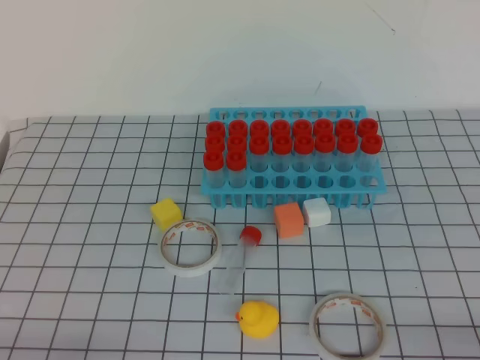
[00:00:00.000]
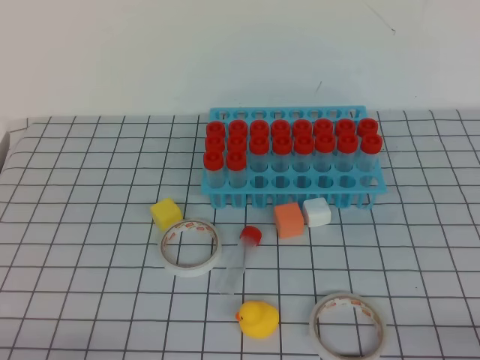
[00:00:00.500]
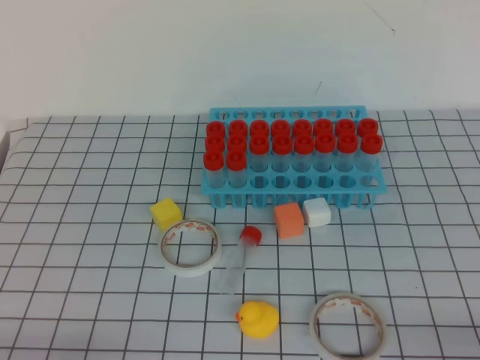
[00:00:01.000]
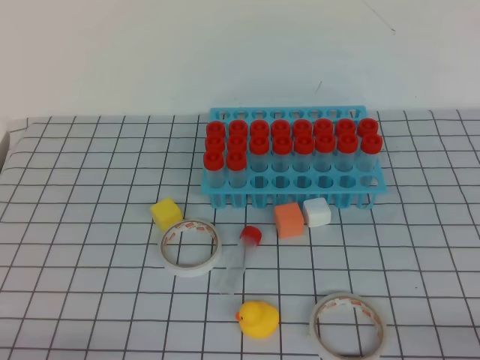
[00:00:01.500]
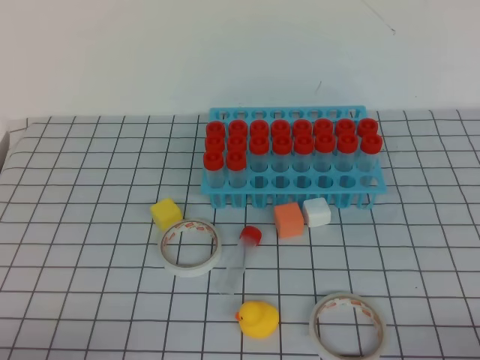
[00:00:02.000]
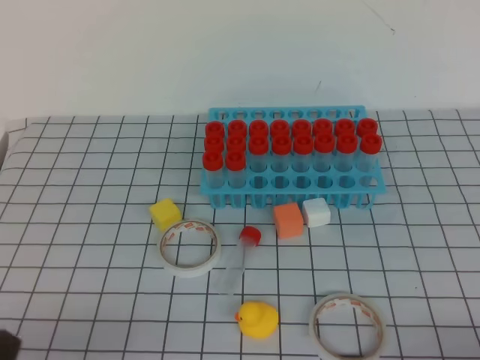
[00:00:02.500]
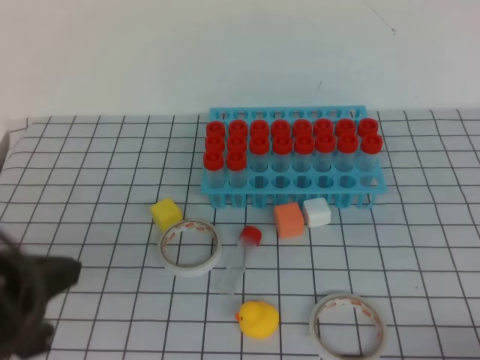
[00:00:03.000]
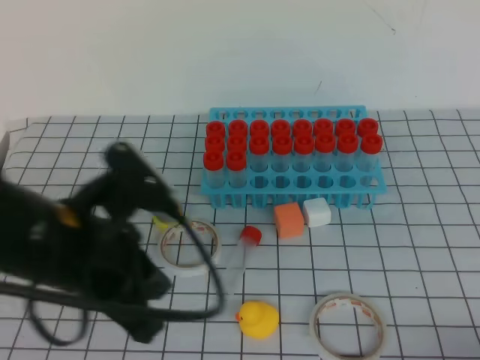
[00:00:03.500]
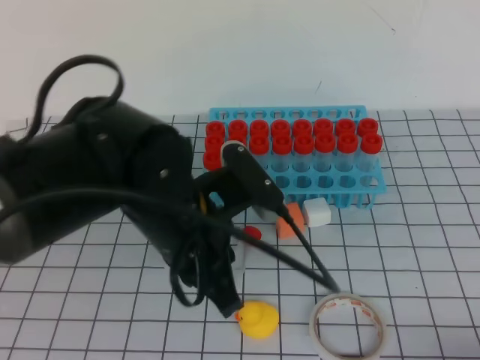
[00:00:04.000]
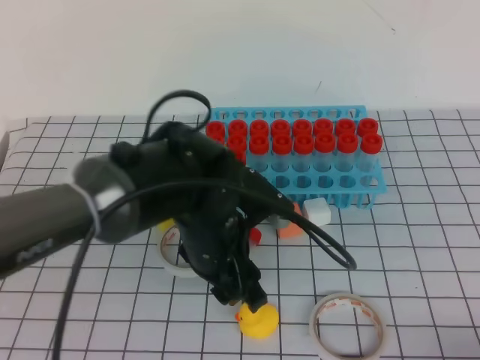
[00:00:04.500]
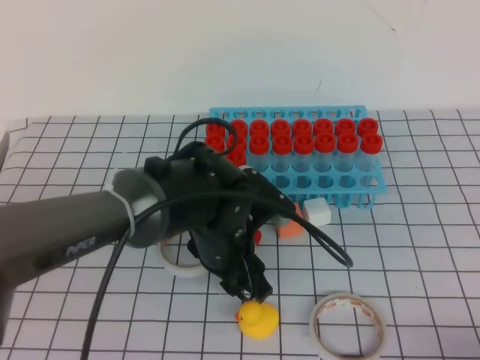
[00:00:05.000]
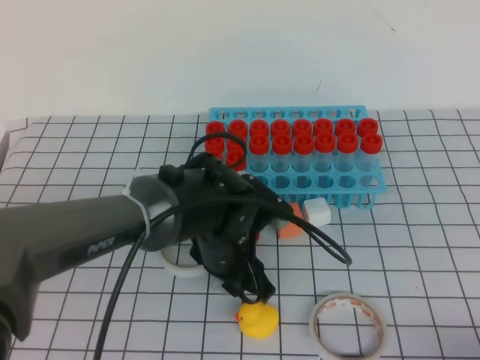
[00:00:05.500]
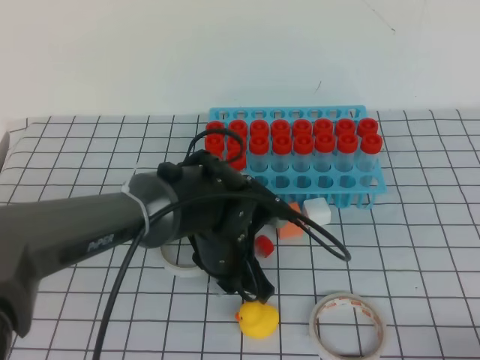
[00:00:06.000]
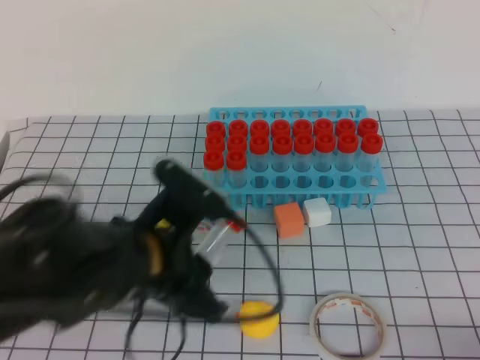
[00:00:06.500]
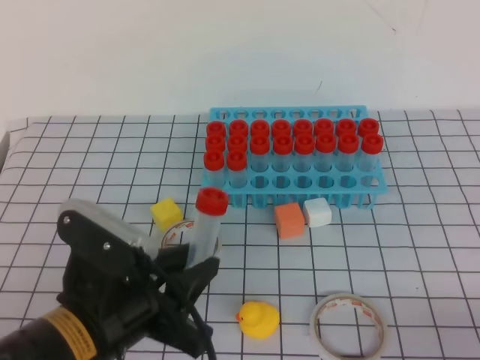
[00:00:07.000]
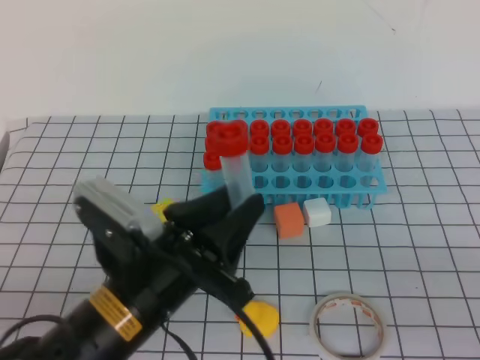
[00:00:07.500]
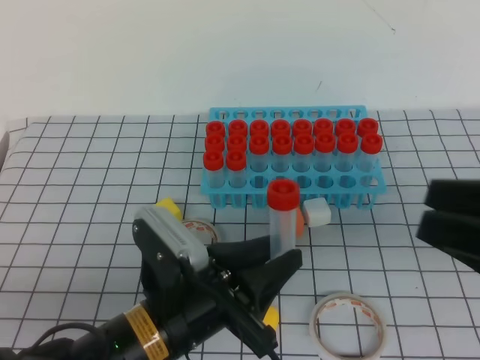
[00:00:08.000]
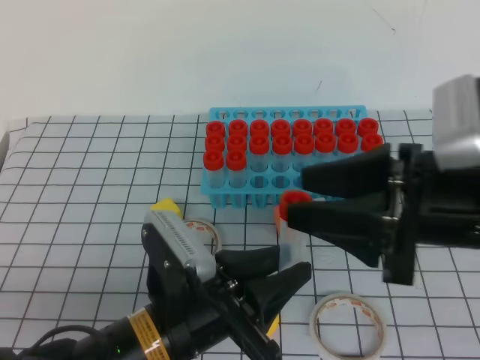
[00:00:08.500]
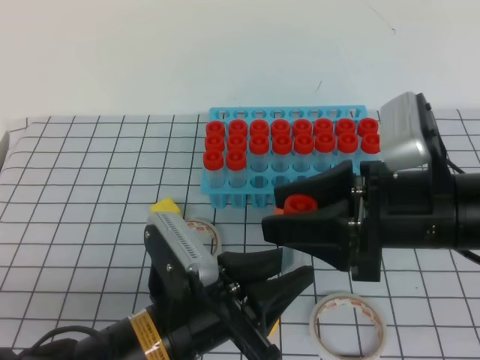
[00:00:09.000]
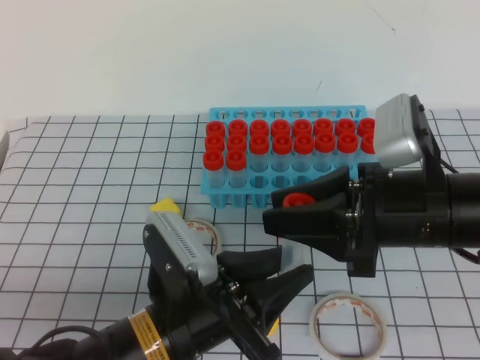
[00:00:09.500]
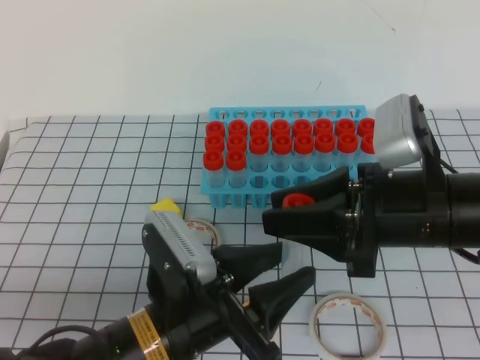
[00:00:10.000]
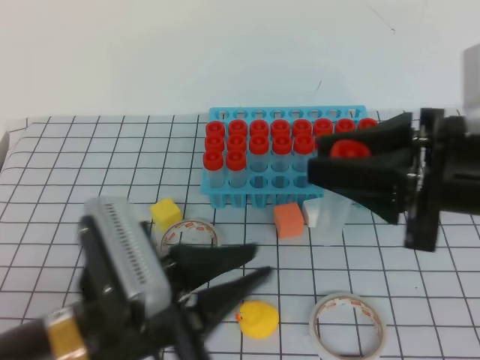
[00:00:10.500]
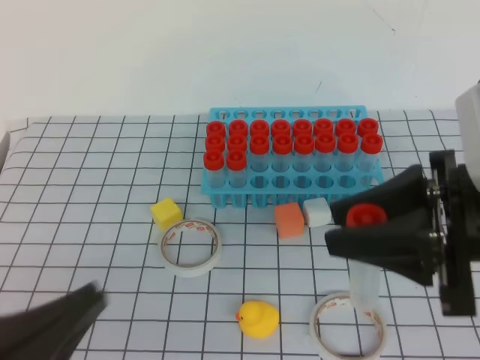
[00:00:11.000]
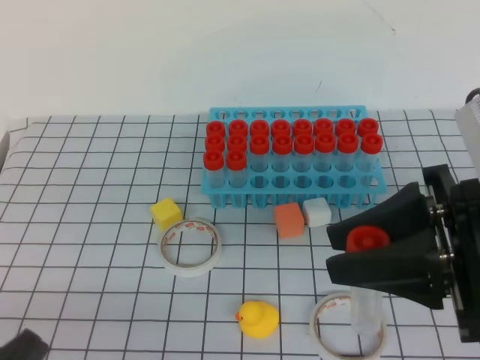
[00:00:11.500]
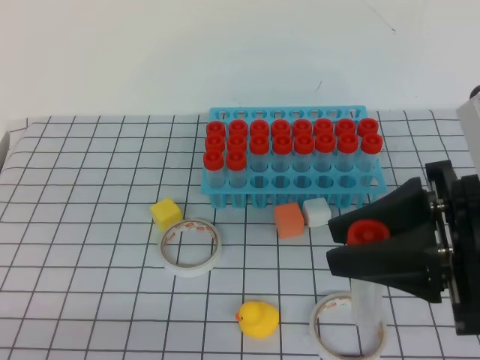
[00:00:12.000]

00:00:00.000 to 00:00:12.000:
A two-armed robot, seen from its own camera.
00:00:02.000 to 00:00:04.000: The left gripper is displaced to the right, forward and upward by roughly 30 cm.
00:00:04.000 to 00:00:06.000: The left gripper moves downward and forward, some 10 cm, and opens up.
00:00:06.000 to 00:00:08.000: The left gripper goes approximately 15 cm backward and to the left. Meanwhile the right gripper shifts some 15 cm upward and forward, and opens.
00:00:08.000 to 00:00:10.000: The right gripper heads to the left and forward, covering some 15 cm.
00:00:10.000 to 00:00:12.000: The left gripper is displaced backward and to the left by approximately 20 cm, and closes. Meanwhile the right gripper shifts by some 10 cm.

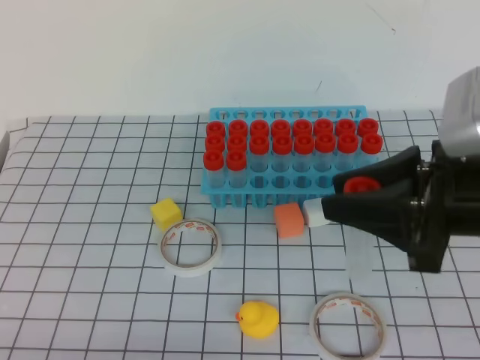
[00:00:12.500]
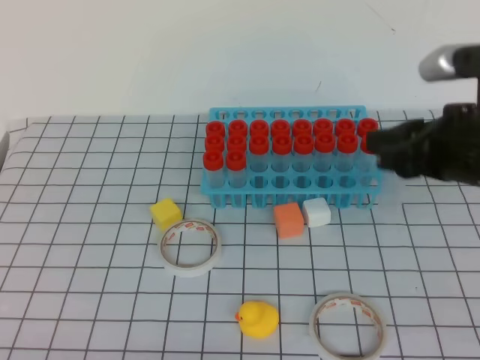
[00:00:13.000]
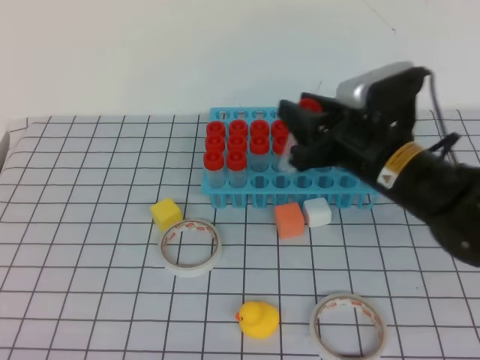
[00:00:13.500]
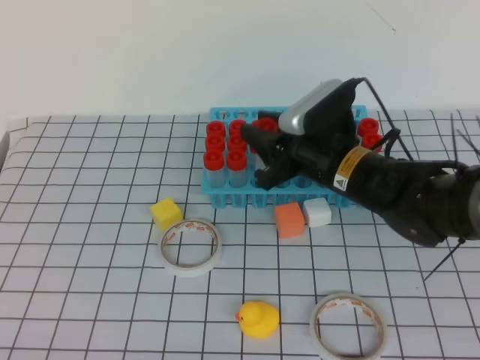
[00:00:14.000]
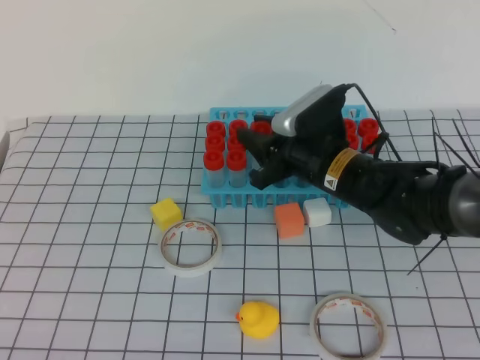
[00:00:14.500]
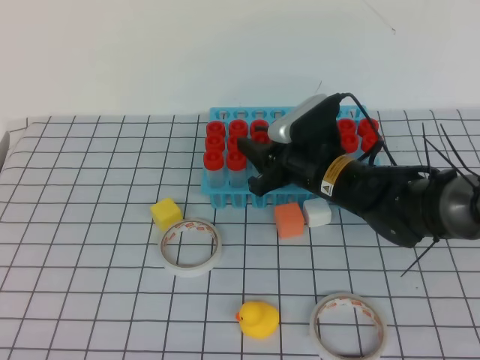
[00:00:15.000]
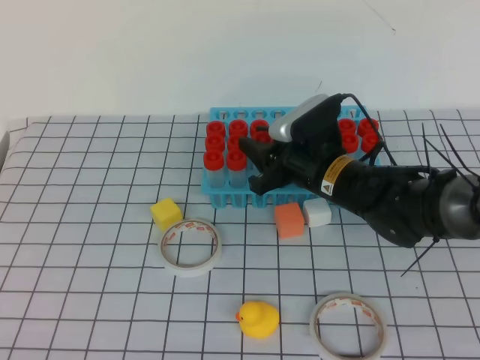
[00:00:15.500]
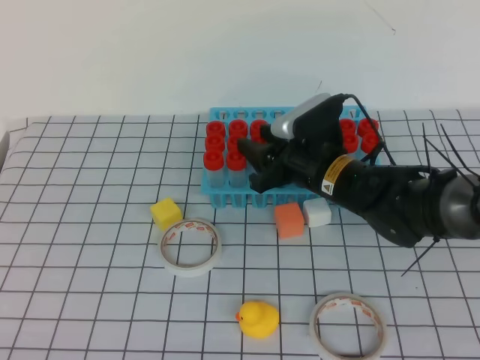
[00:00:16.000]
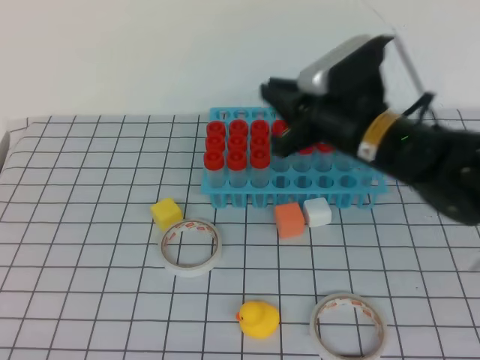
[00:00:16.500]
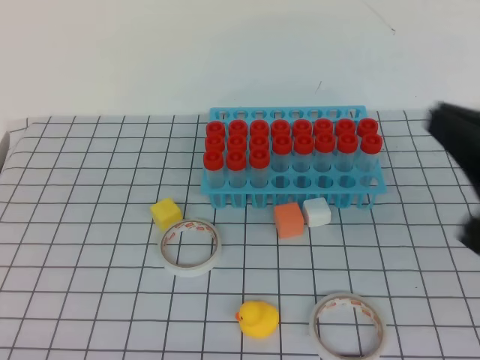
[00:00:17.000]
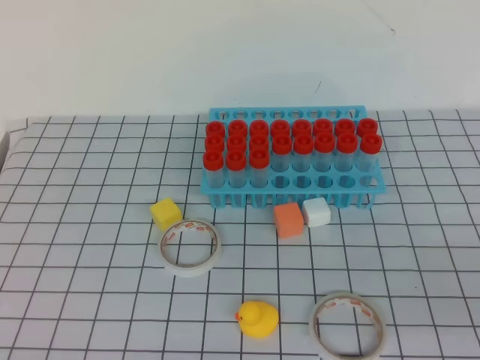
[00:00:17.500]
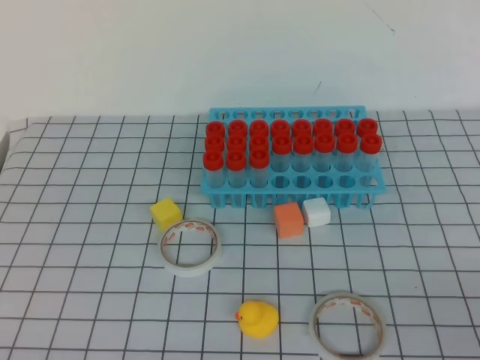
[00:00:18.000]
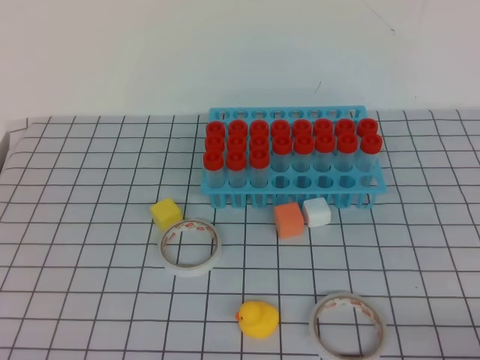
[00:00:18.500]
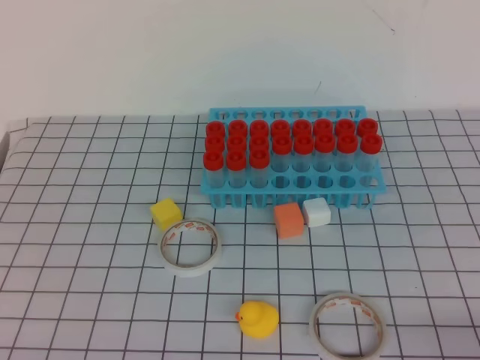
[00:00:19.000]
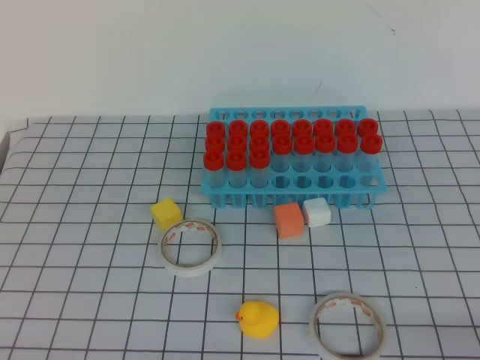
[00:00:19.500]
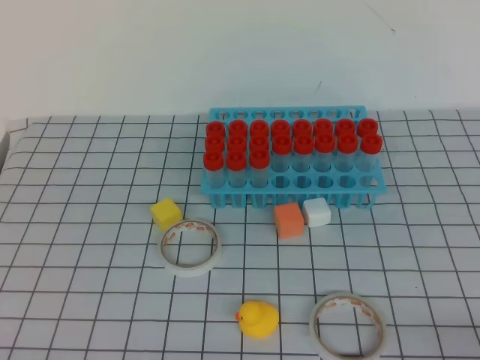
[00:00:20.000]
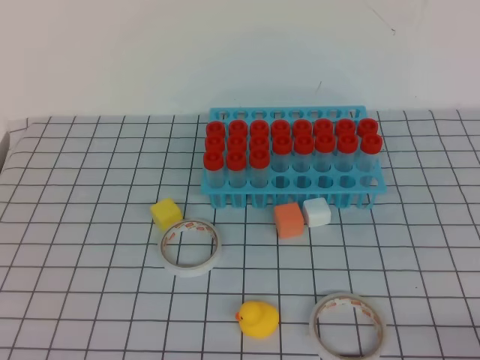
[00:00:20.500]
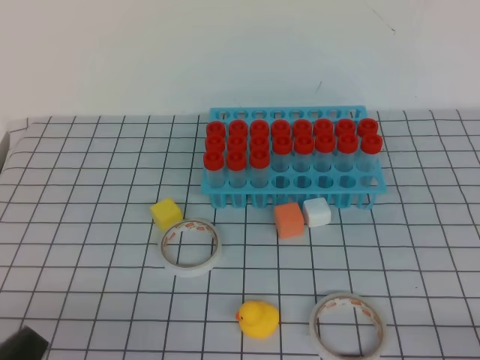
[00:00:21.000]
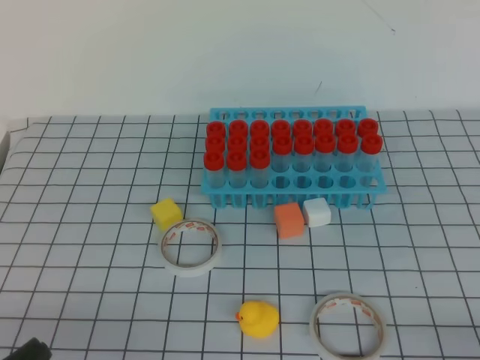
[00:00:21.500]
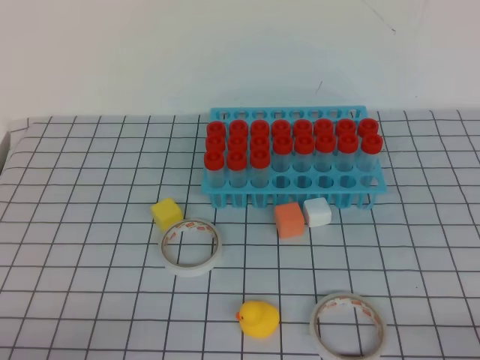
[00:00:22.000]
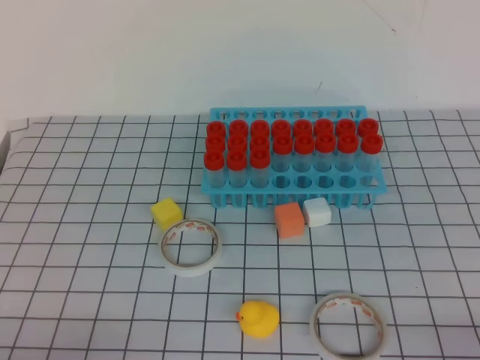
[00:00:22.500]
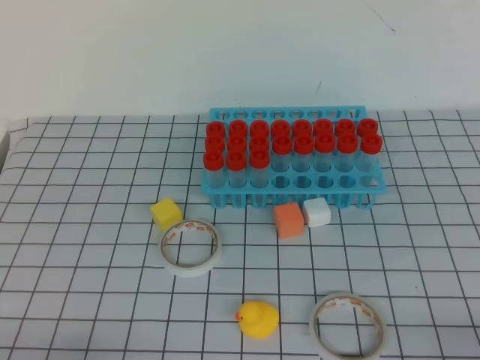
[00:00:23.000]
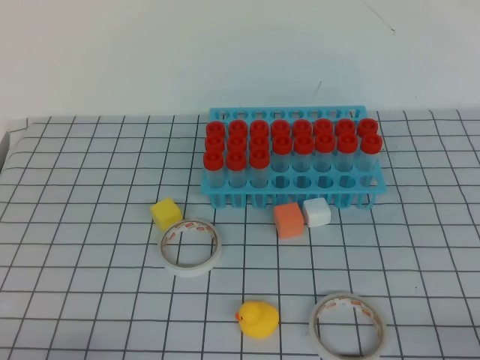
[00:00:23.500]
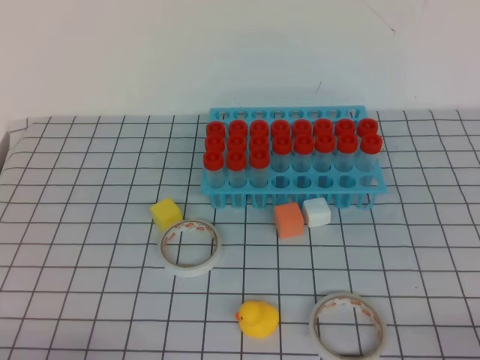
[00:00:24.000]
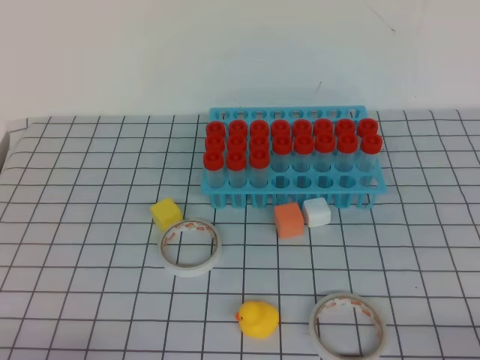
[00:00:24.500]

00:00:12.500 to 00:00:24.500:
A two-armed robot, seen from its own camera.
00:00:12.500 to 00:00:14.500: The right gripper moves forward, downward and to the left, some 20 cm.
00:00:14.500 to 00:00:16.500: The right gripper moves upward, approximately 5 cm.
00:00:16.500 to 00:00:18.500: The right gripper travels backward and to the right by about 35 cm, and closes its fingers.
